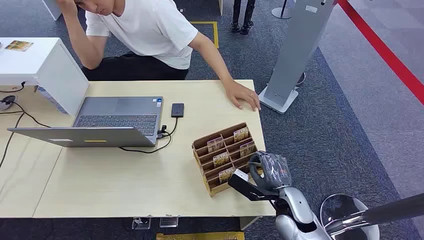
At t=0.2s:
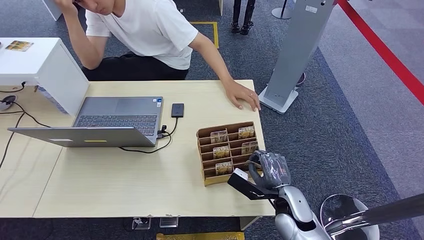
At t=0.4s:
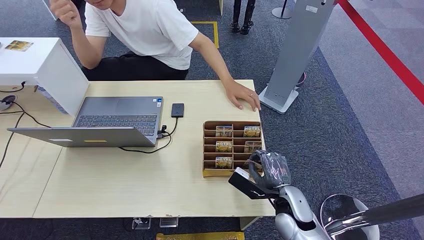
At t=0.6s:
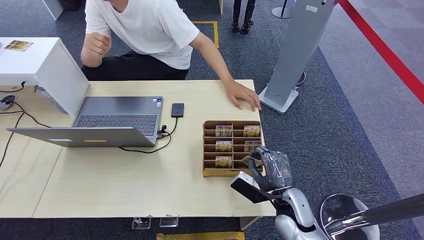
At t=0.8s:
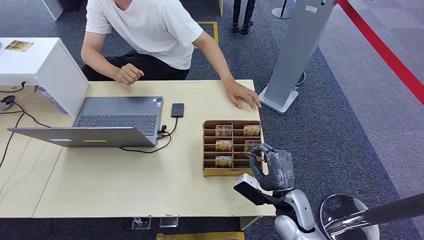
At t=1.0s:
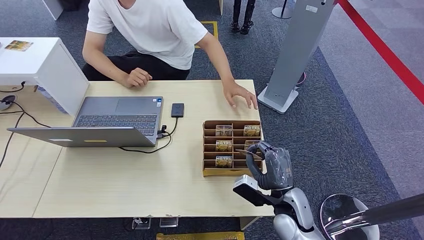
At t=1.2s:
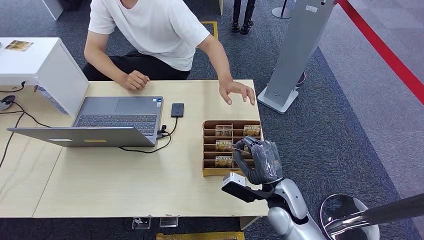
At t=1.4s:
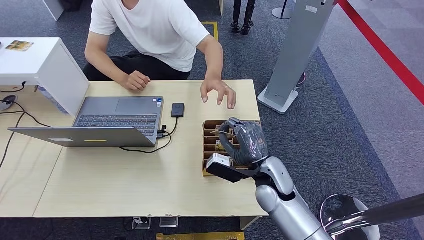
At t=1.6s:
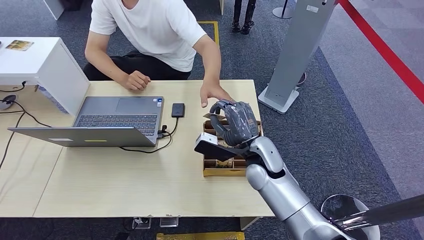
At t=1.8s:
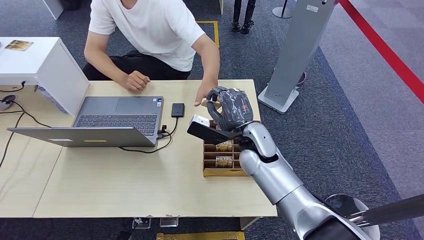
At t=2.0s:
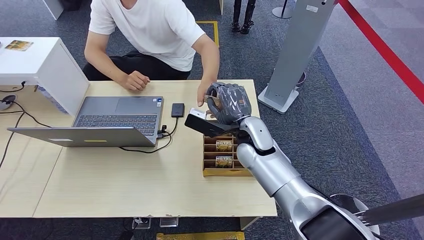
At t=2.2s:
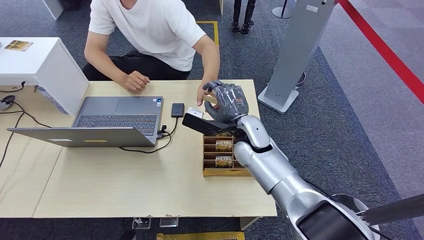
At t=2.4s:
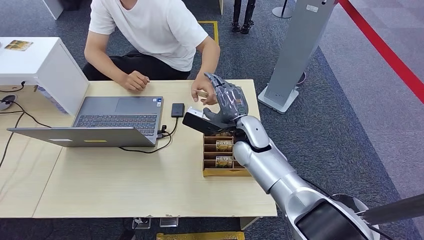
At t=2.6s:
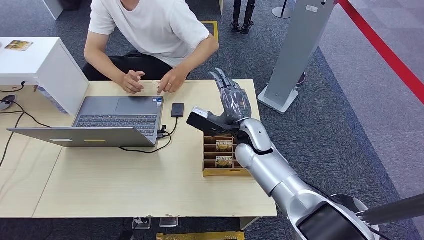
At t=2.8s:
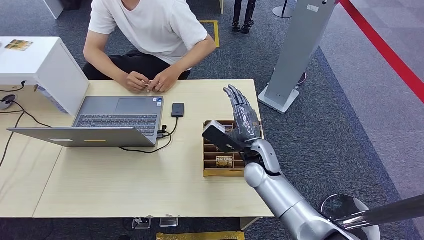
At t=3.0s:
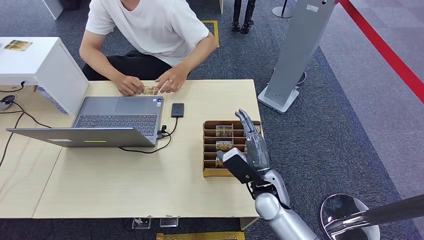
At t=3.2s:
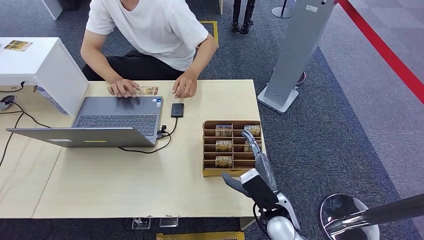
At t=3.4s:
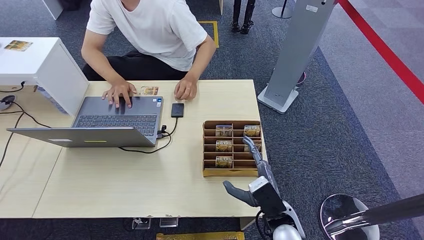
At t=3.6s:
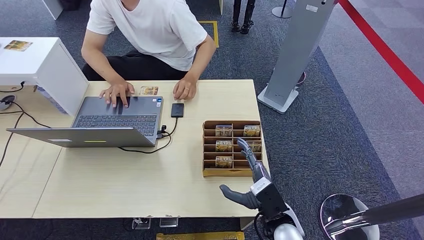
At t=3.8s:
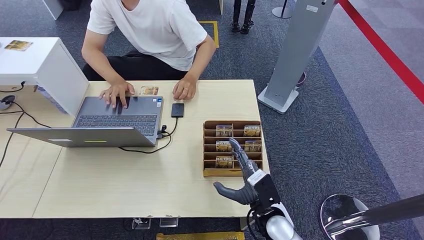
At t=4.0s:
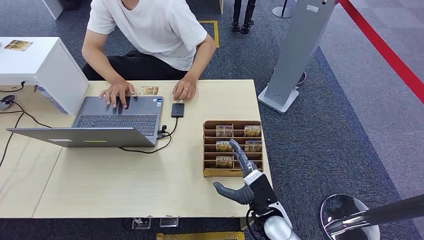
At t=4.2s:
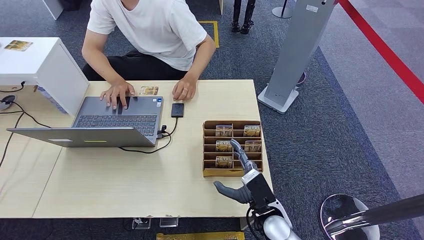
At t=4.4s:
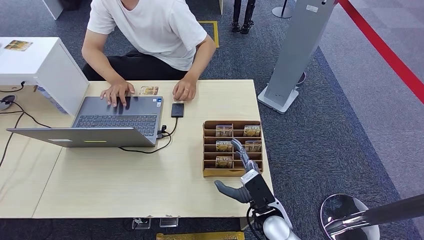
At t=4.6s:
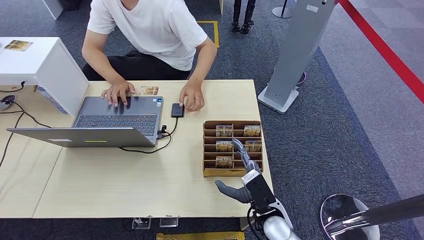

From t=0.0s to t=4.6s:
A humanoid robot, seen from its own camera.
Step, from t=0.0s to t=2.0s: Pick up the key card from the card box.
Step, from t=2.2s to t=4.6s: Hand the key card to the target.
From t=1.6s to t=3.0s: The right hand is displaced downward and backward by some 10 cm.
From t=3.0s to t=4.6s: The right hand travels backward by about 5 cm.
